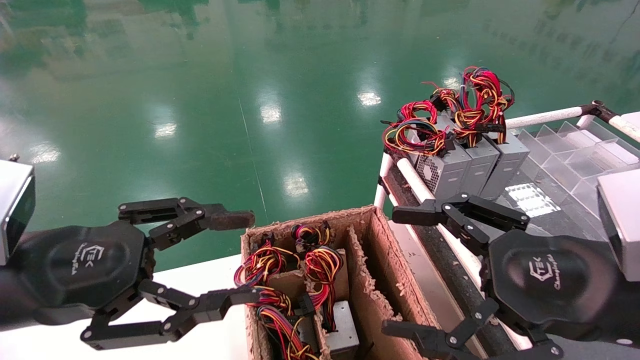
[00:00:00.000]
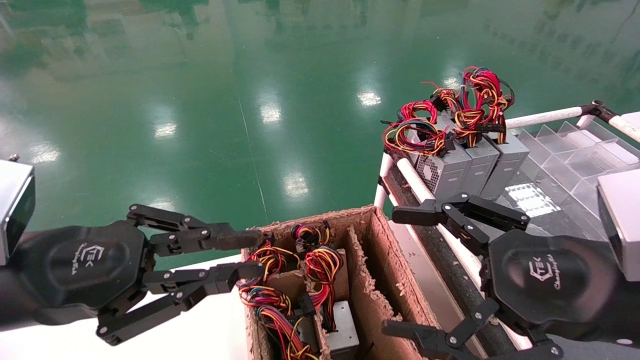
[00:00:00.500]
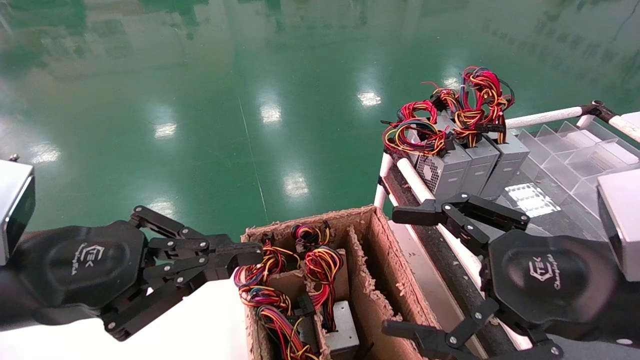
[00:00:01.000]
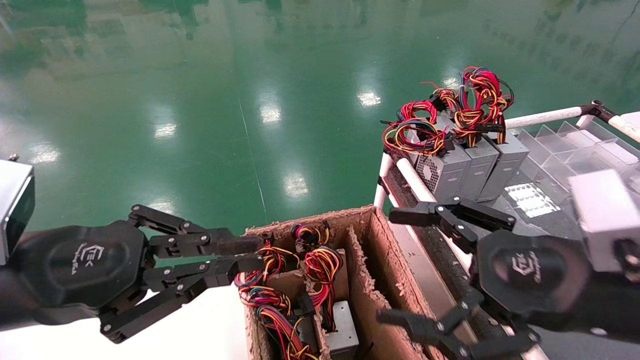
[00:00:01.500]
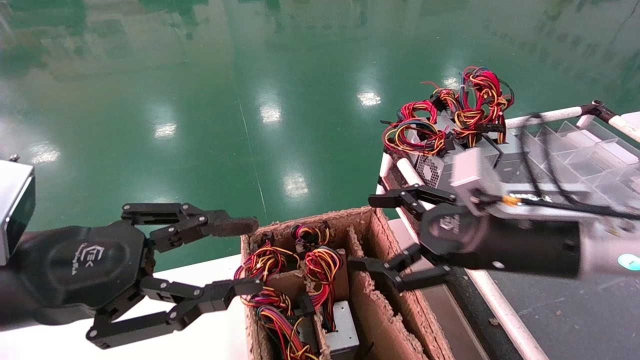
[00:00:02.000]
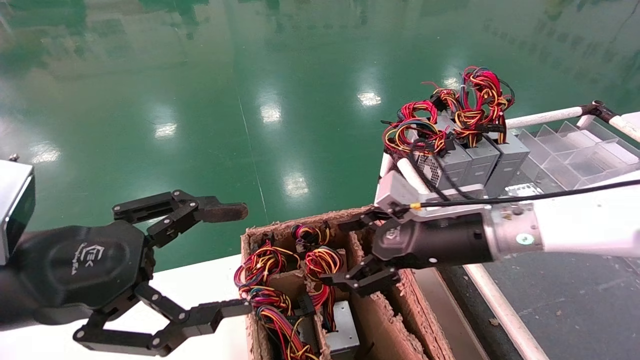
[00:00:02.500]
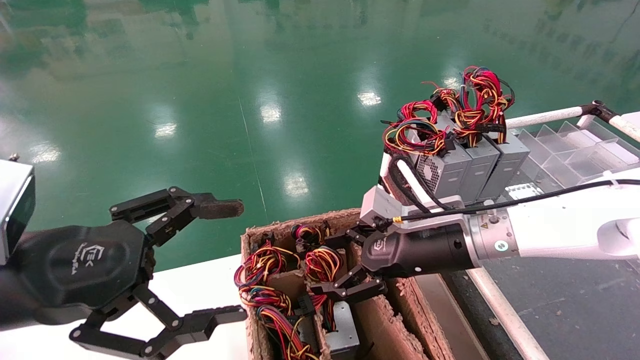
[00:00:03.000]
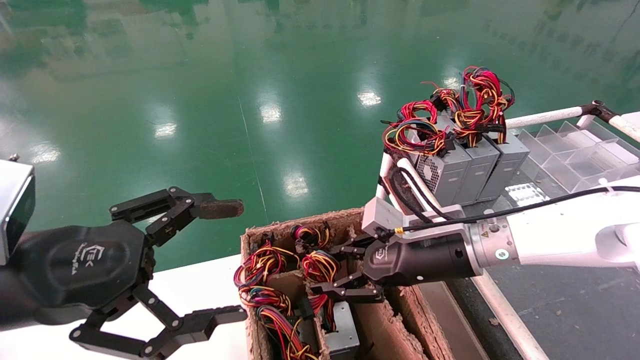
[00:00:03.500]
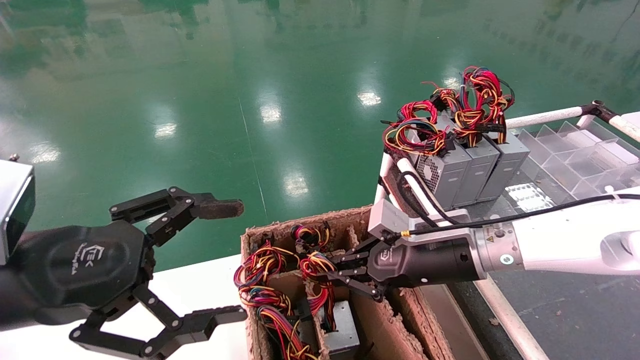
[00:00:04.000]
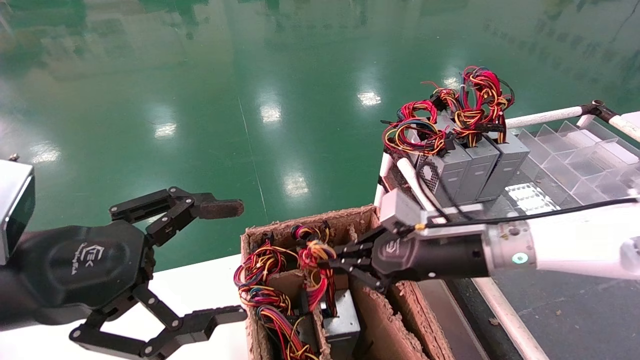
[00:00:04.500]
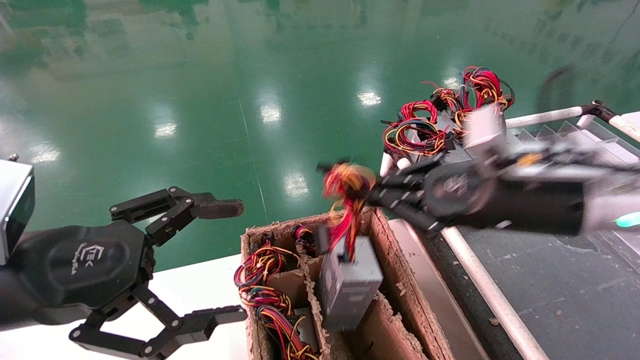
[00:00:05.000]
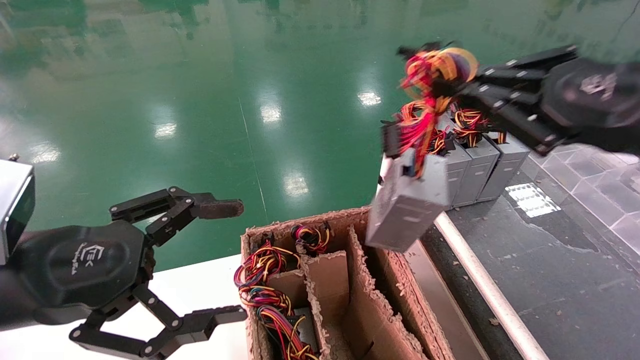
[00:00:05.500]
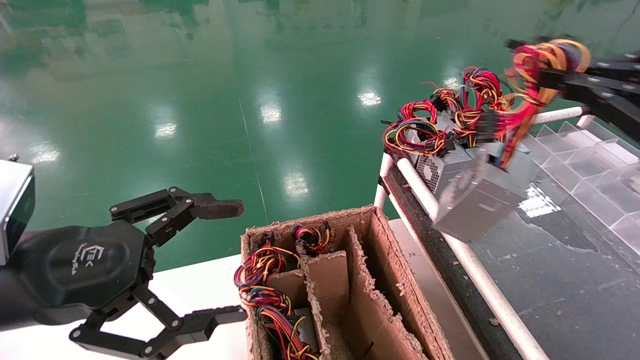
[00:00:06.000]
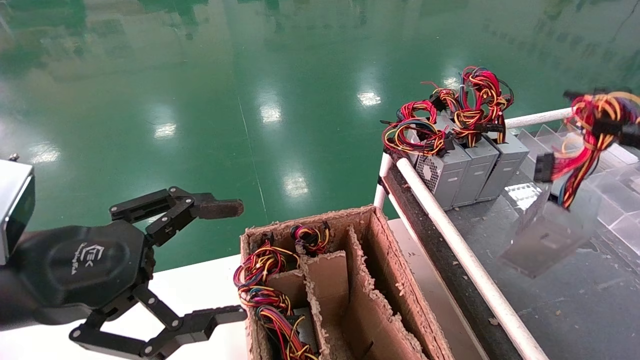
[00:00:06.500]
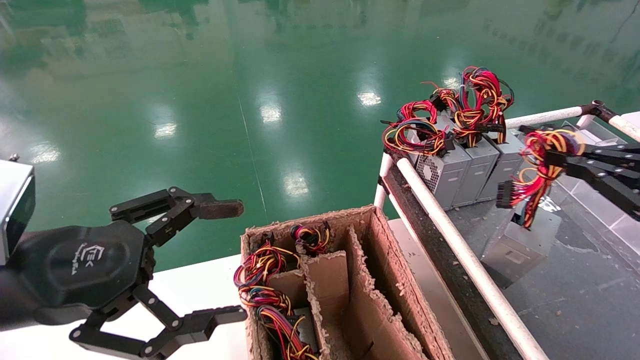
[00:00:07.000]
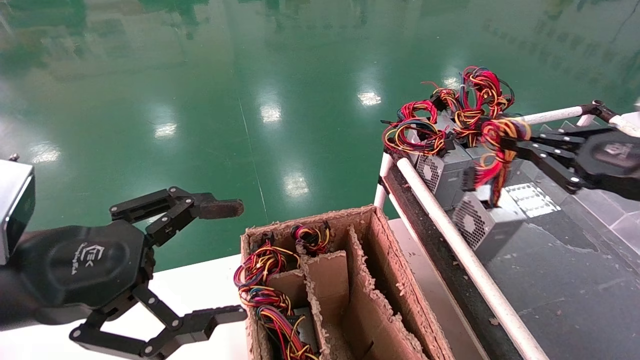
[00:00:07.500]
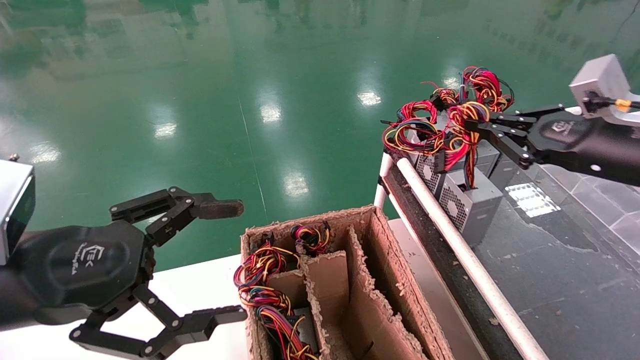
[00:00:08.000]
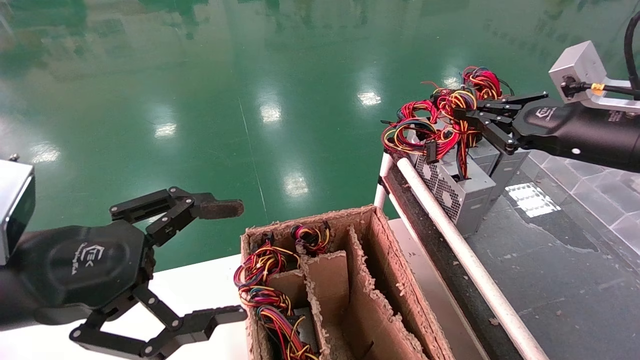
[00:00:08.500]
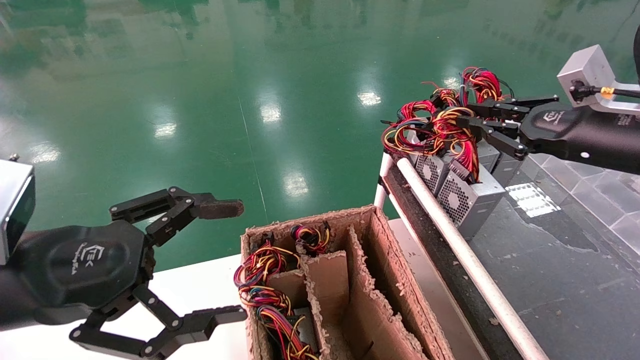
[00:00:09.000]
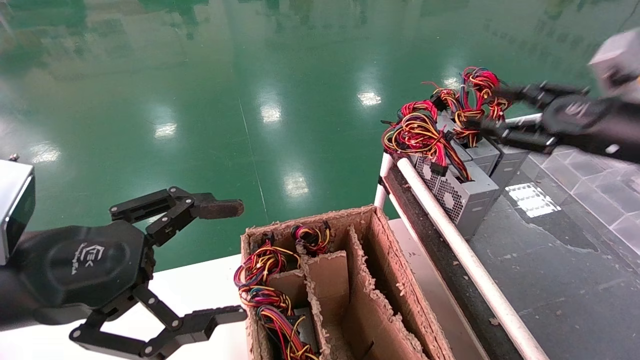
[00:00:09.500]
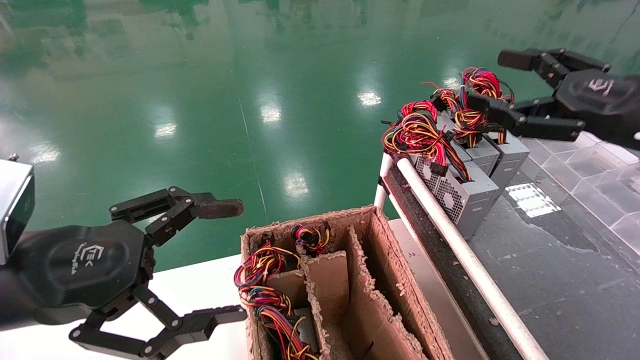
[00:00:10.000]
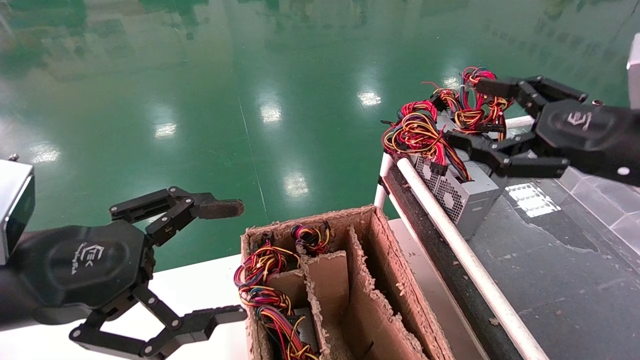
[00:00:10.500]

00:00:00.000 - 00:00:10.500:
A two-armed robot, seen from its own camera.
Step, 00:00:01.000 - 00:00:04.000: Grab and lift the power supply from the large box.
Step, 00:00:04.500 - 00:00:08.500: Place the power supply on the operating table.
00:00:00.000 - 00:00:02.000: The right gripper shifts approximately 10 cm forward.
00:00:02.000 - 00:00:04.000: The right gripper moves forward, downward and to the left, approximately 10 cm, and closes up; the left gripper opens its fingers.
00:00:04.000 - 00:00:06.500: The right gripper heads to the right, backward and upward, covering roughly 35 cm.
00:00:06.500 - 00:00:08.500: The right gripper shifts some 20 cm forward and to the left.
00:00:08.500 - 00:00:10.500: The right gripper travels backward by approximately 5 cm, and opens up.

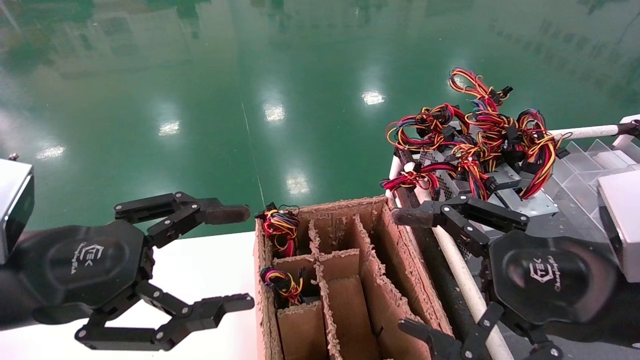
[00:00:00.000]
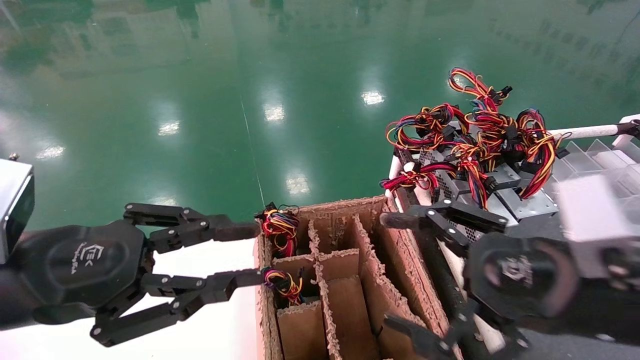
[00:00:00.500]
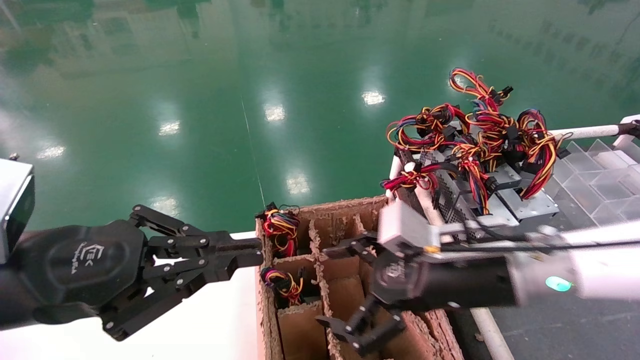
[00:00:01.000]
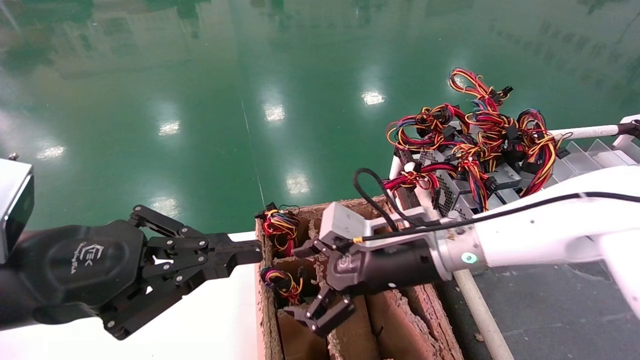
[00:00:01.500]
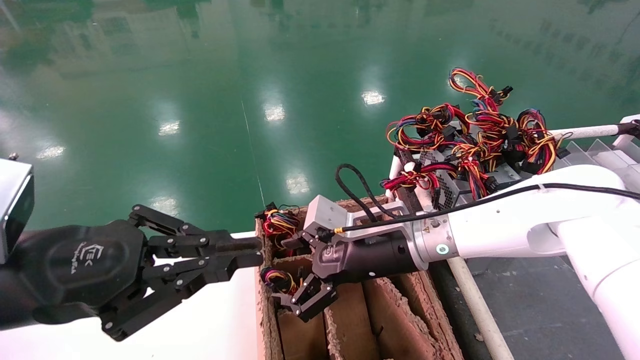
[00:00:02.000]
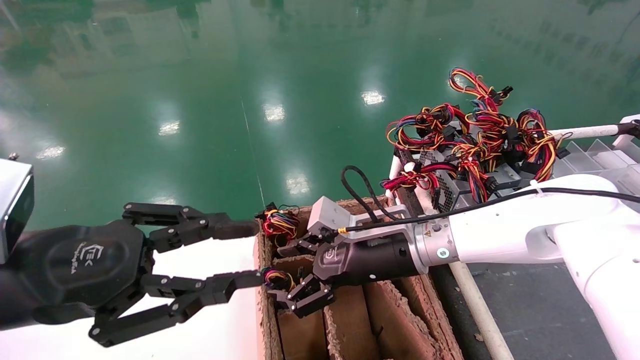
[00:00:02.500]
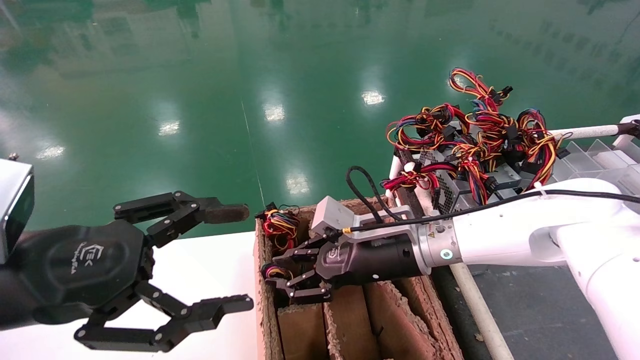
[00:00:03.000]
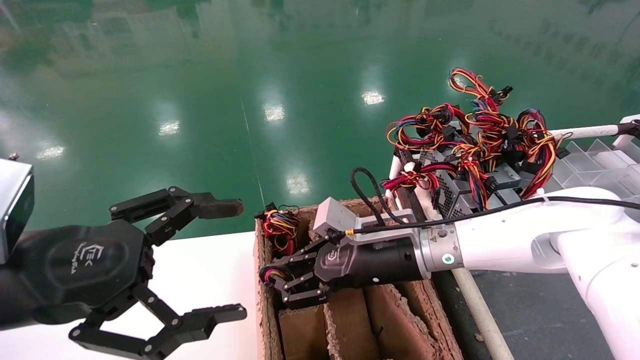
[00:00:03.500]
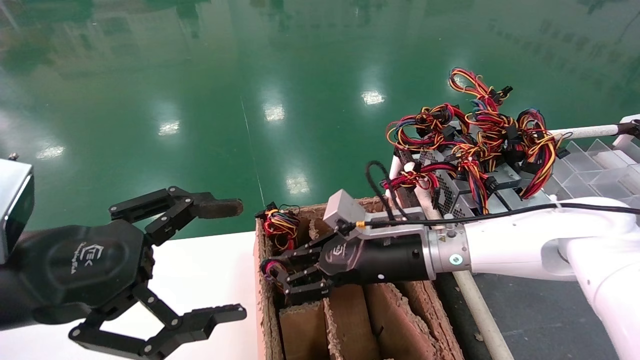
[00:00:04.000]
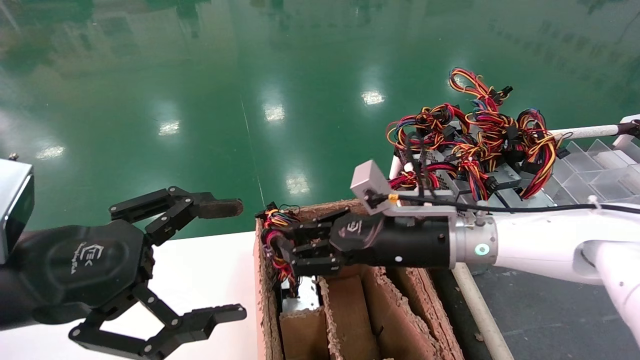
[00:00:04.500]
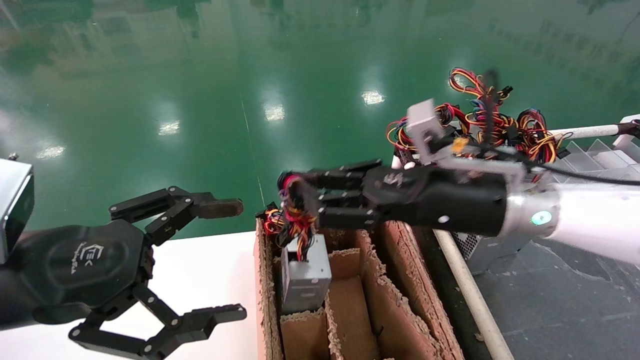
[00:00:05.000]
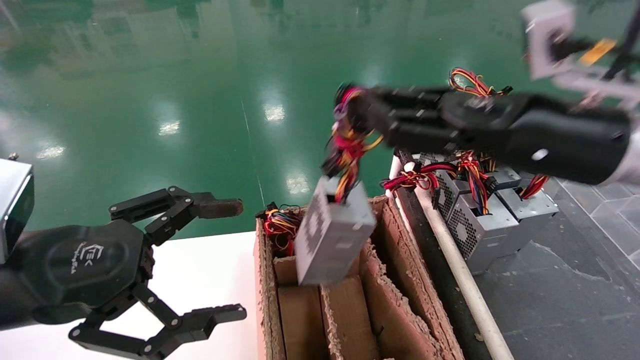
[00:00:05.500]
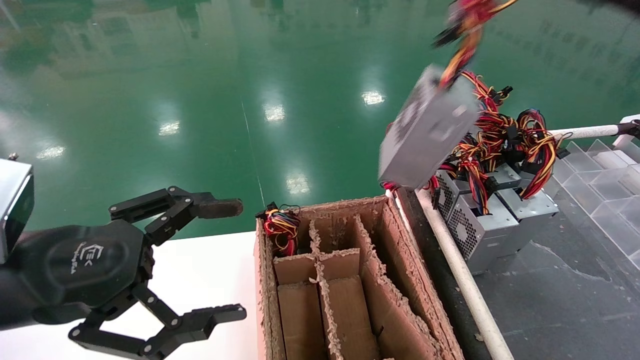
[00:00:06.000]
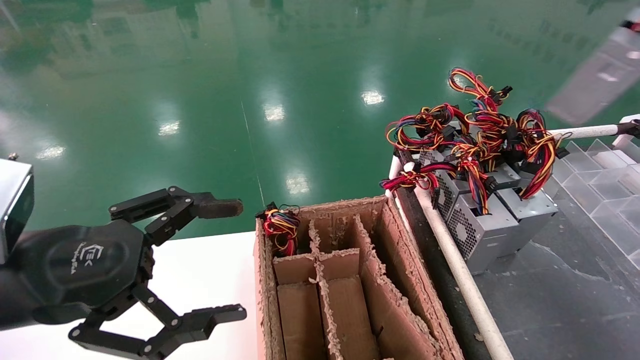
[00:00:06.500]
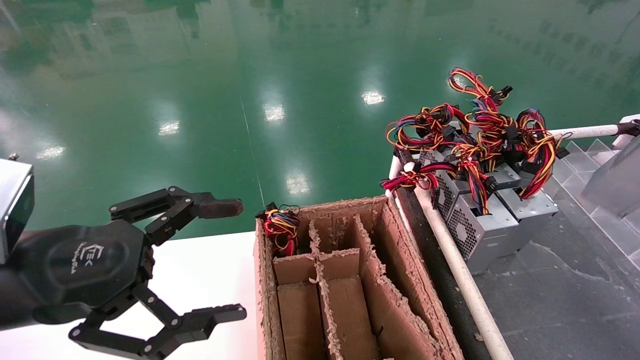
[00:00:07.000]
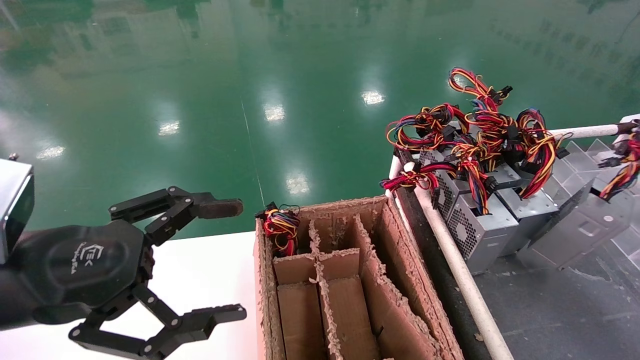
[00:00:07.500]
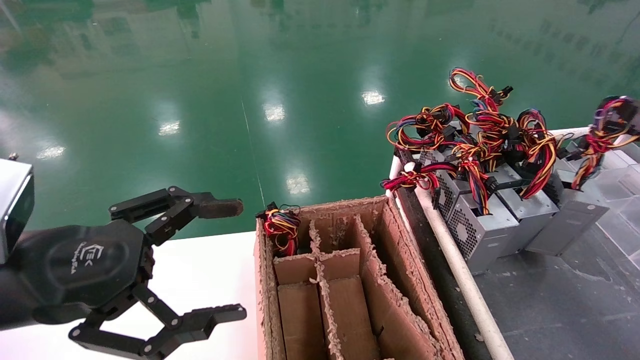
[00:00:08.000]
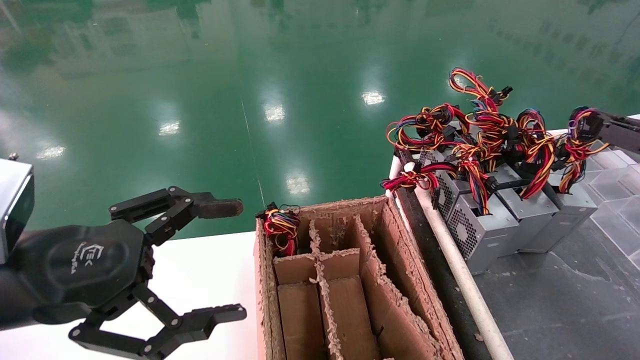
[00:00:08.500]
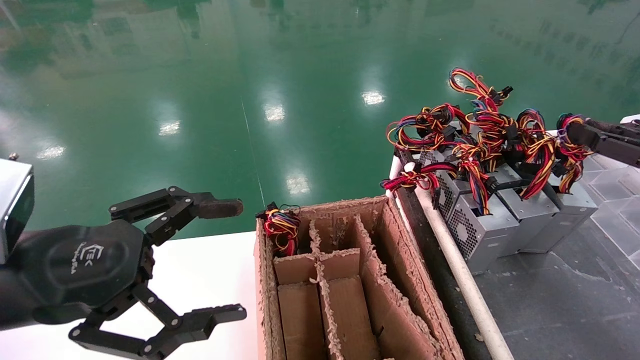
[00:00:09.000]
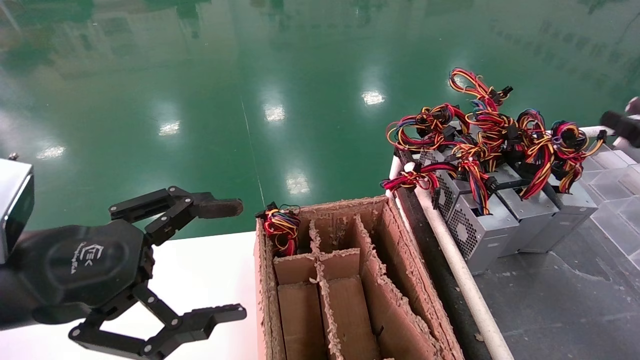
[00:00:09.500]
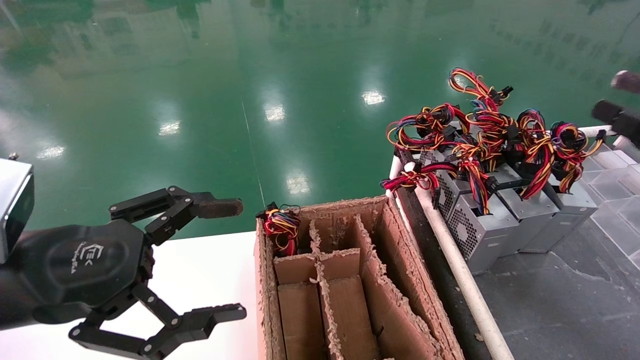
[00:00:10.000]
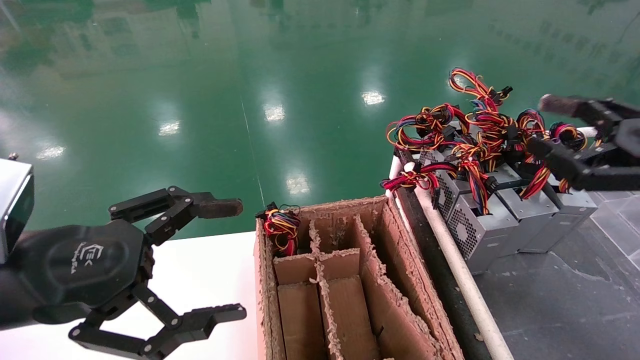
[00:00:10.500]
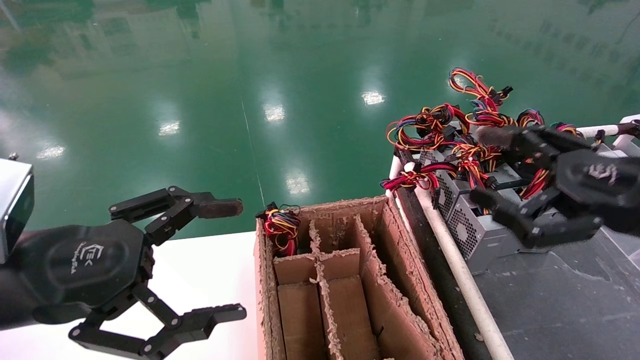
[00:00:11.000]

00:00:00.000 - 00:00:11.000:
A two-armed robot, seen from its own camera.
Step, 00:00:01.500 - 00:00:03.500: Grab and lift the power supply from the large box.
Step, 00:00:04.000 - 00:00:08.500: Place the power supply on the operating table.
00:00:00.000 - 00:00:02.000: The left gripper closes its fingers. The right gripper is displaced forward and to the left by about 25 cm.
00:00:02.000 - 00:00:03.500: The right gripper closes. Meanwhile the left gripper opens.
00:00:03.500 - 00:00:05.500: The right gripper heads upward, to the right and backward, covering roughly 25 cm.
00:00:05.500 - 00:00:07.500: The right gripper is displaced to the right by about 30 cm.
00:00:07.500 - 00:00:09.000: The right gripper travels forward by some 5 cm.
00:00:09.000 - 00:00:11.000: The right gripper heads to the left, covering roughly 15 cm, and opens up.
